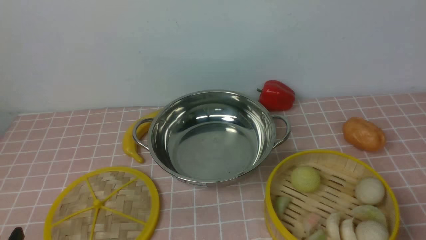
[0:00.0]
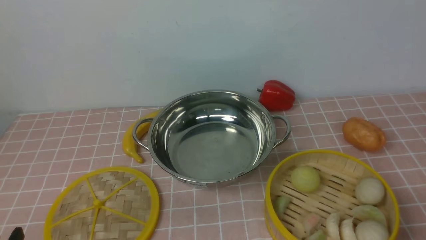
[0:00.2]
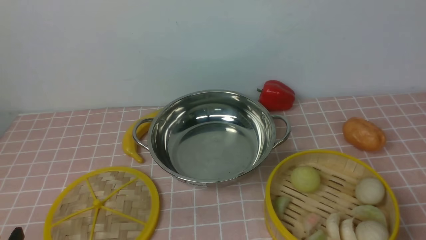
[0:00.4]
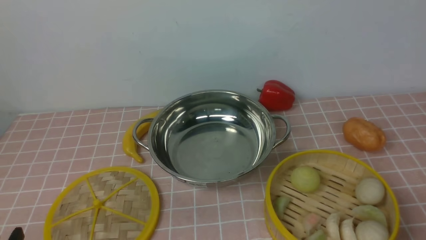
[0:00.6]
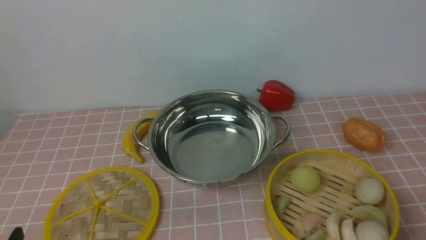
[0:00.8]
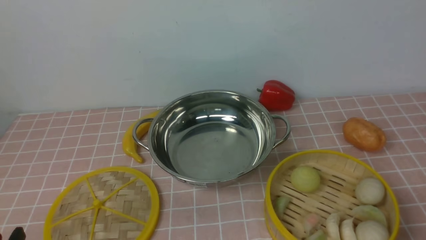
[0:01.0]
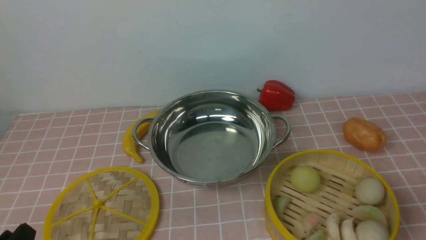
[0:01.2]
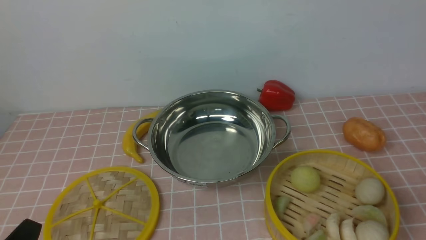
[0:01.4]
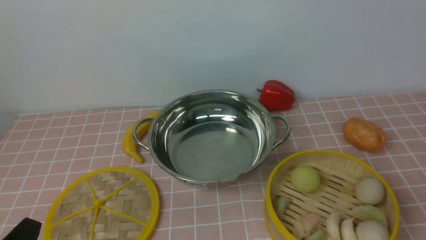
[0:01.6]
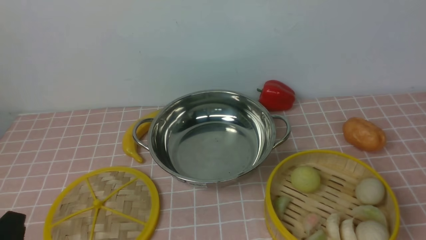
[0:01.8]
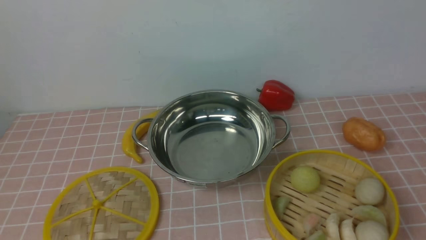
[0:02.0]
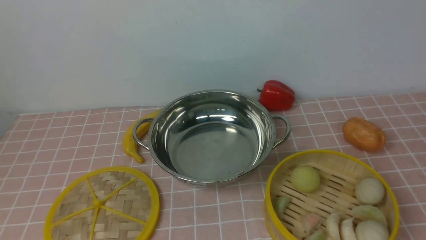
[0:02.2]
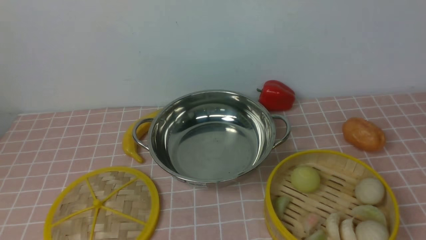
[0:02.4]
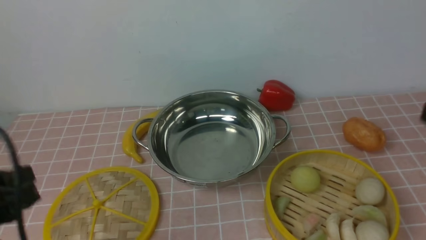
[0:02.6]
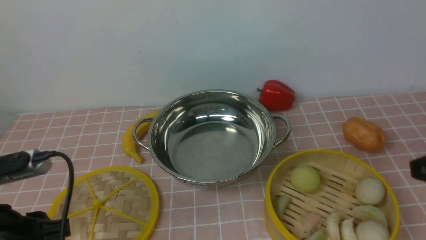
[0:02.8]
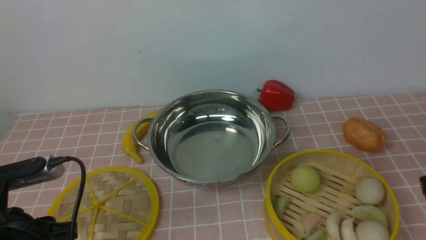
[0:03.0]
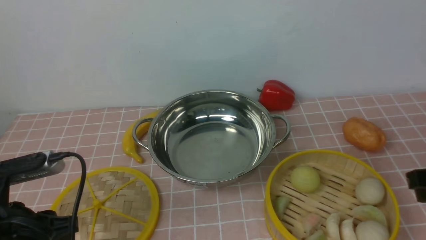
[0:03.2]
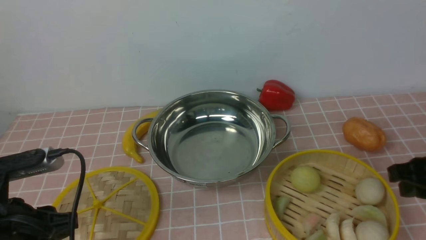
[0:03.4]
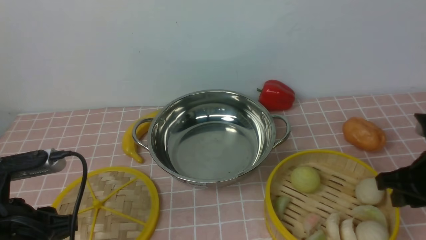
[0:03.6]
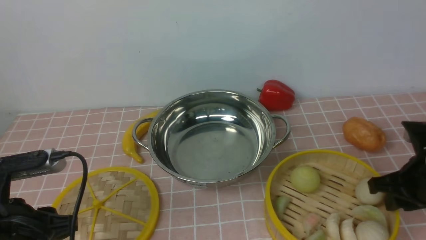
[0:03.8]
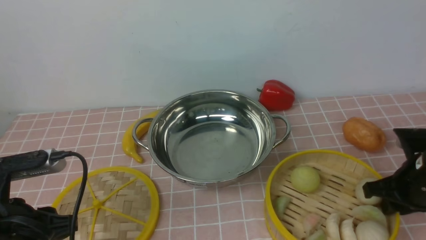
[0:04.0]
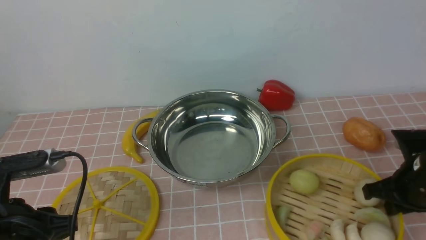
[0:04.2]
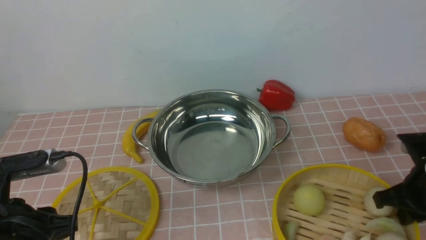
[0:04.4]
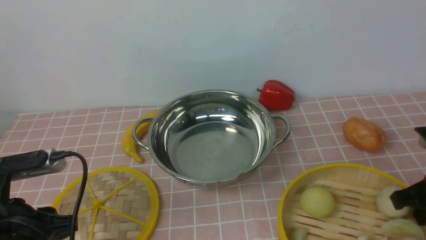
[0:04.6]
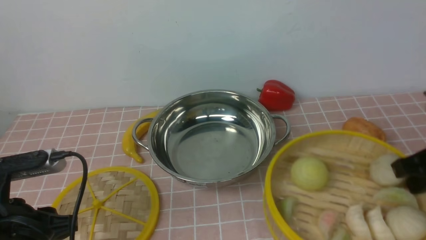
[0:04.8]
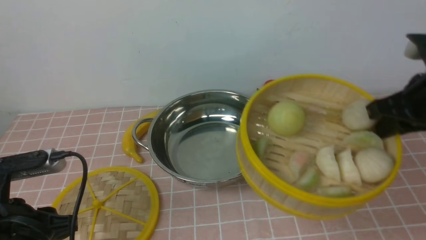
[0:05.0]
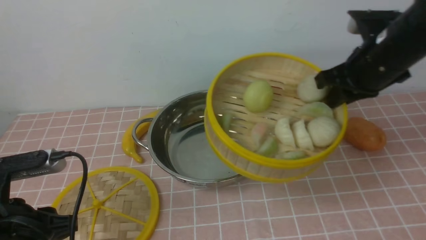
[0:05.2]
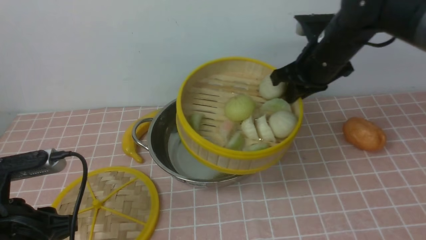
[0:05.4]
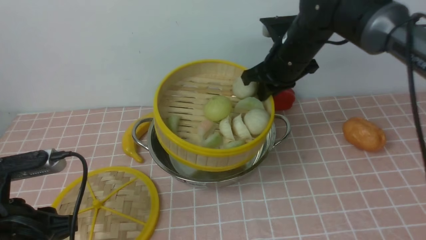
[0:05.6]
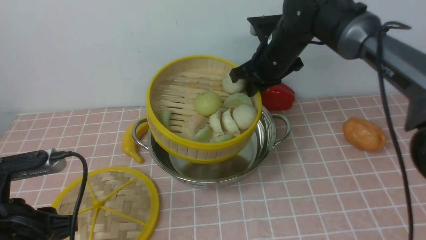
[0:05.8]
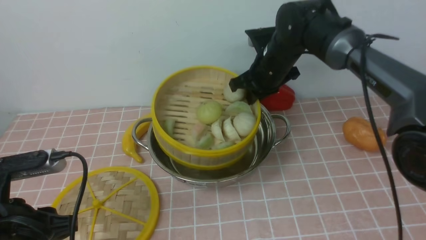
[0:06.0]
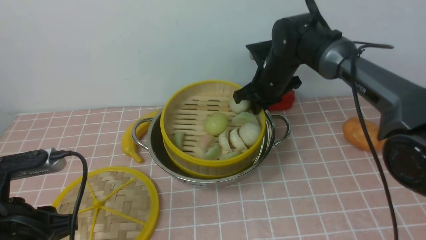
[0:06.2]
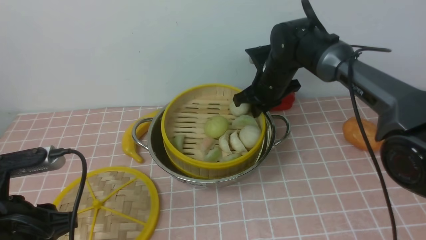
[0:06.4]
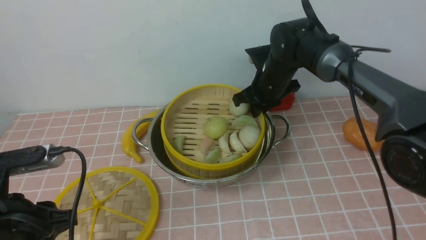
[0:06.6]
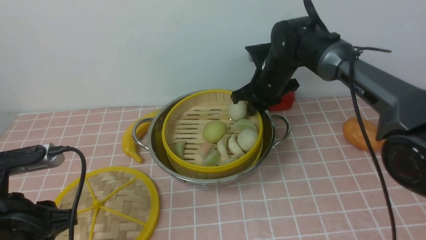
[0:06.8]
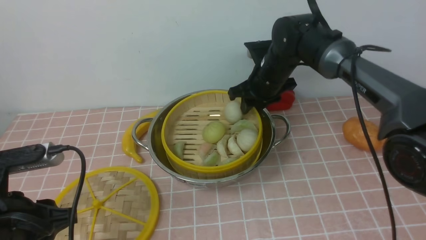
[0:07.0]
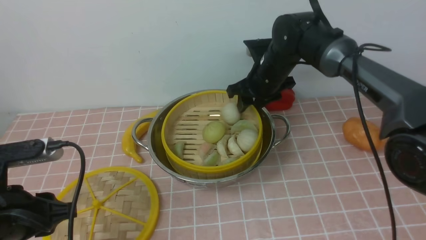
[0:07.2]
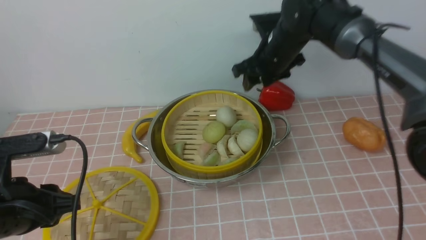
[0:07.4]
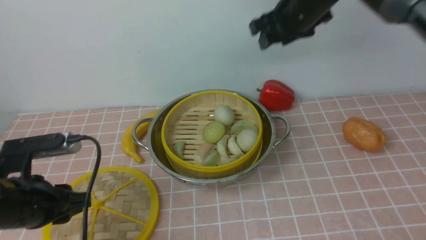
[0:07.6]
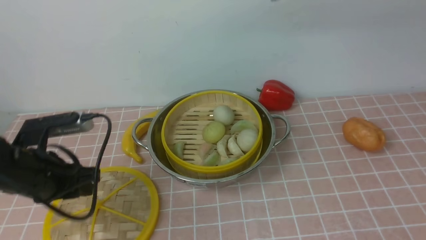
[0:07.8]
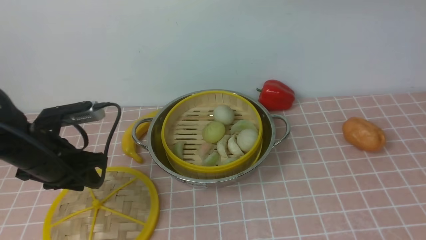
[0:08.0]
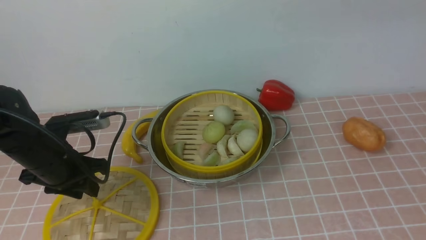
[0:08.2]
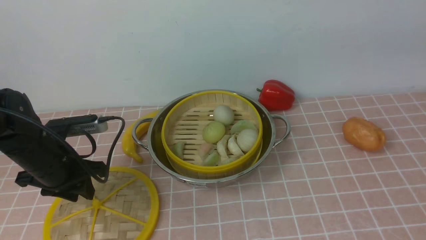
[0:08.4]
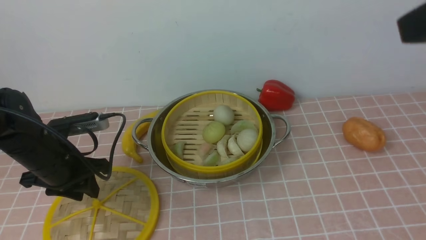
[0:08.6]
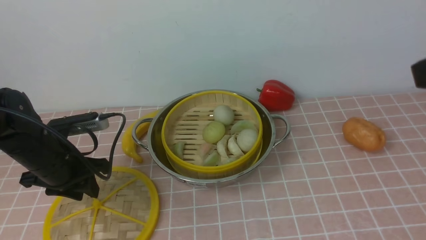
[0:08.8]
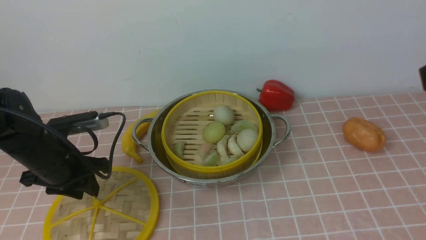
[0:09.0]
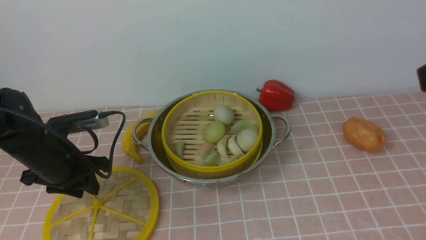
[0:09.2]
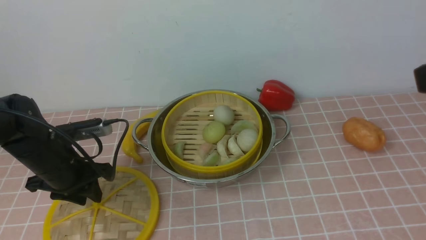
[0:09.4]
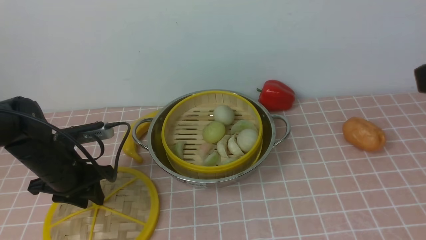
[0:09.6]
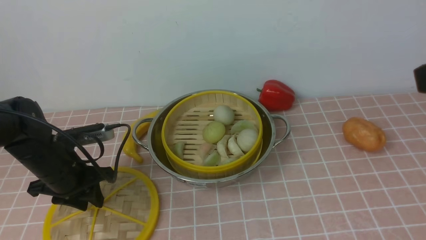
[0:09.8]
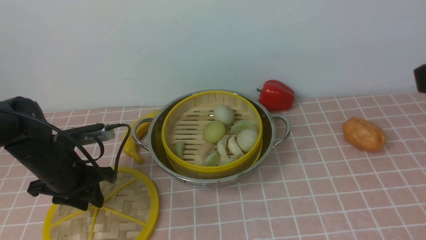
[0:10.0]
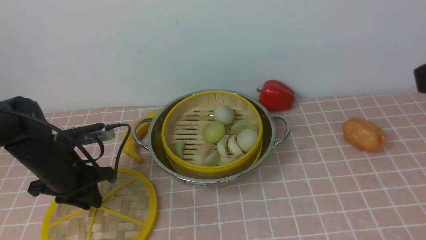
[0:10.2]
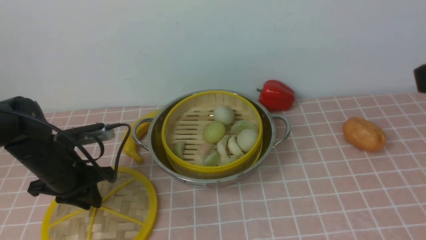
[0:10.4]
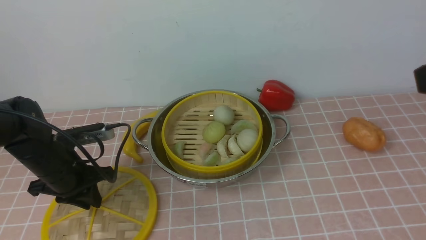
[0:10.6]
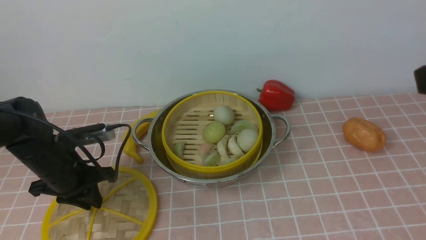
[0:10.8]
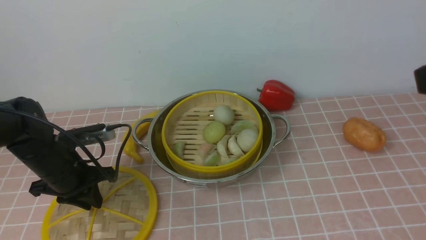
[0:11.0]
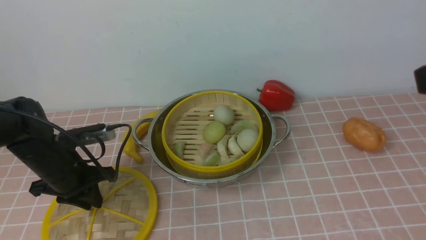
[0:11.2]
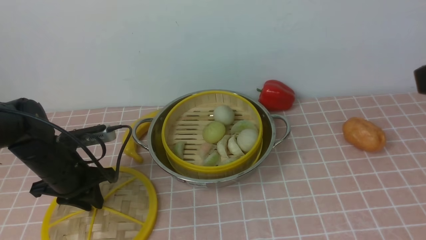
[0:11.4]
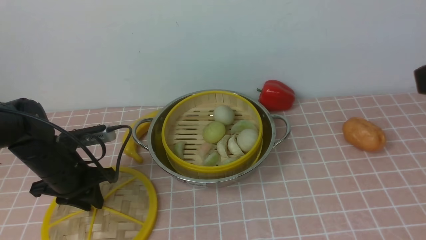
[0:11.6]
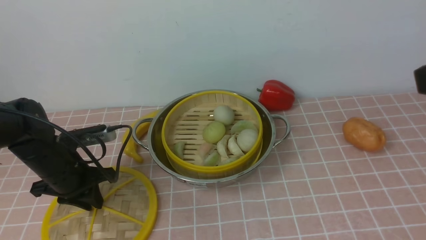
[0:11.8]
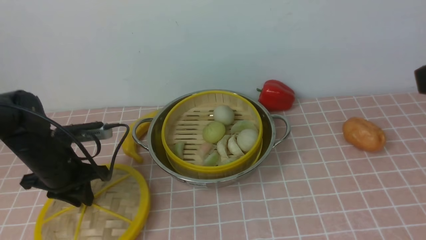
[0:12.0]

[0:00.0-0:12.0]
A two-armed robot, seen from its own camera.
Task of the whole recording: place the steamer in the pot on the pink tablecloth, and put the lid on the steamer.
Step, 0:00.0 to 0:04.4: use the right arm to lift the steamer closest to it.
Step, 0:04.6 to 0:07.2: use the right arm to put the steamer into the iron steamer pot in the middle.
Step, 0:07.4 to 0:12.0: use the left arm to lift the lid of the steamer.
0:01.6 to 0:03.0: The left gripper is displaced forward by some 10 cm, and reaches some 15 cm upward, then returns.
0:03.0 to 0:04.4: The right gripper travels downward and forward by about 10 cm, and closes up.
0:04.4 to 0:06.0: The right gripper shifts roughly 30 cm forward and to the left.
0:06.0 to 0:07.6: The left gripper shifts some 5 cm forward. Meanwhile the right gripper is displaced upward by some 15 cm, and opens.
0:07.6 to 0:09.0: The right gripper is displaced backward by about 30 cm; the left gripper shifts roughly 10 cm forward.
0:09.0 to 0:12.0: There are only small adjustments of the grippers.

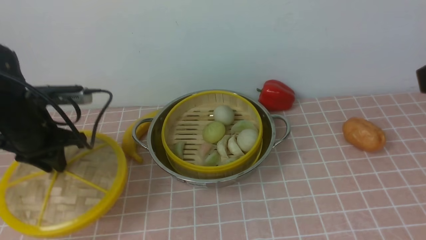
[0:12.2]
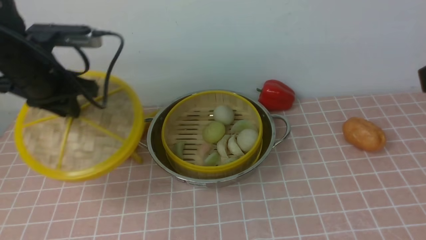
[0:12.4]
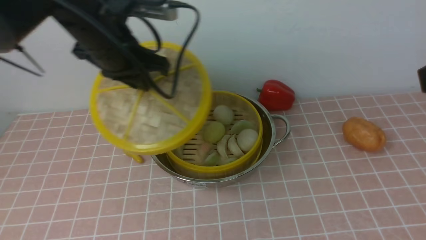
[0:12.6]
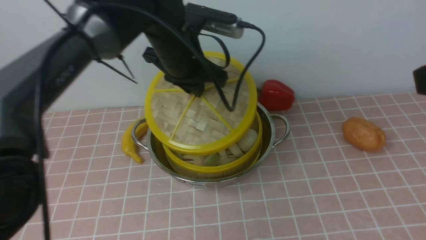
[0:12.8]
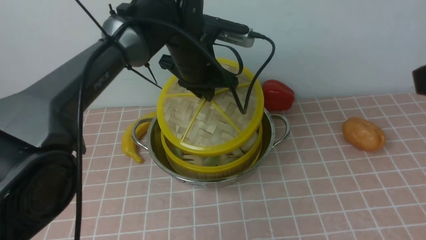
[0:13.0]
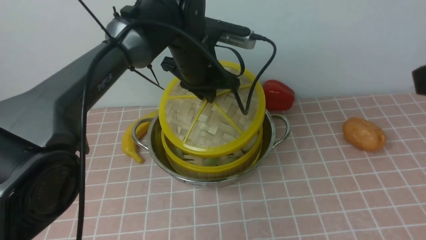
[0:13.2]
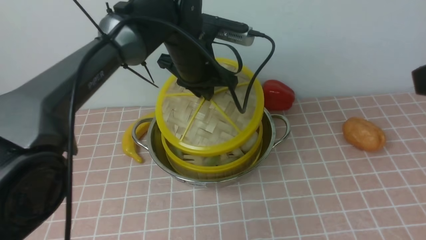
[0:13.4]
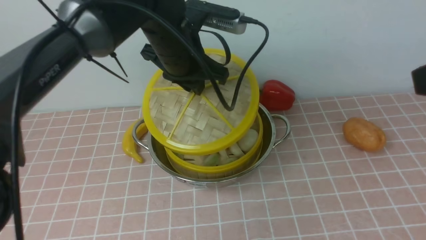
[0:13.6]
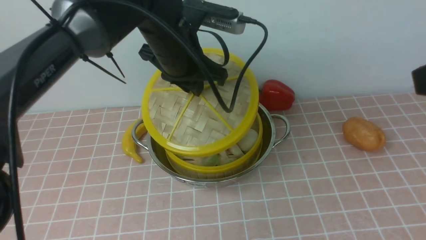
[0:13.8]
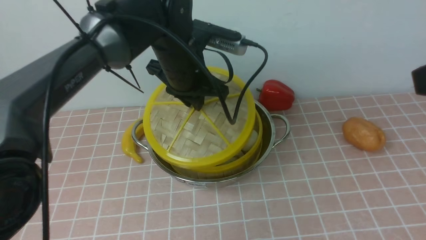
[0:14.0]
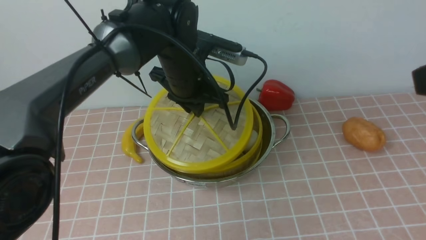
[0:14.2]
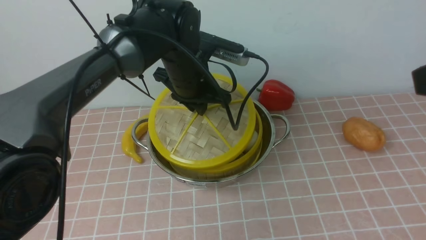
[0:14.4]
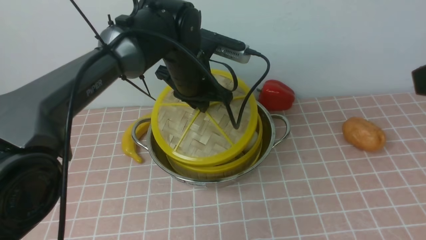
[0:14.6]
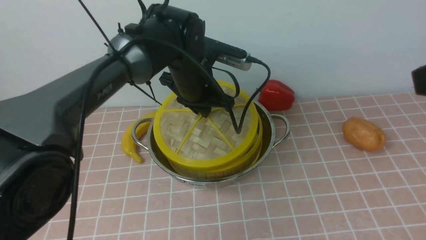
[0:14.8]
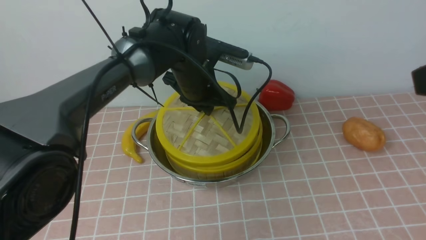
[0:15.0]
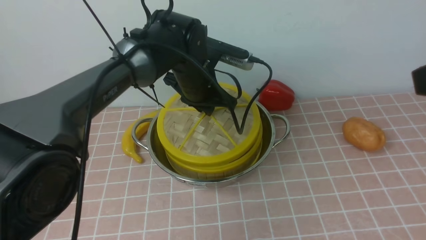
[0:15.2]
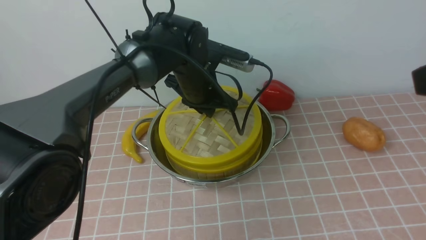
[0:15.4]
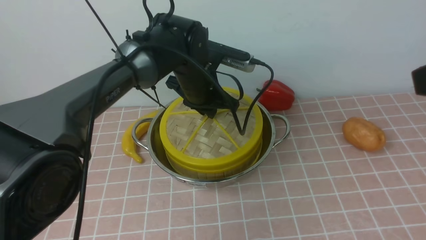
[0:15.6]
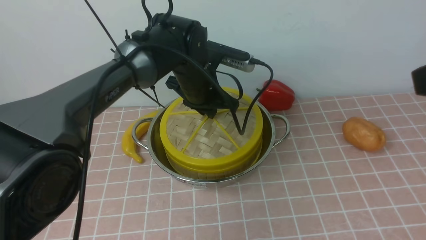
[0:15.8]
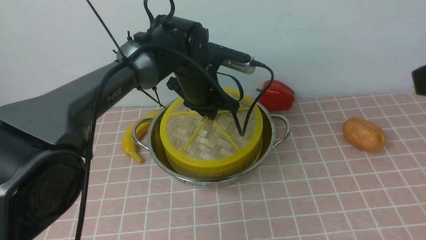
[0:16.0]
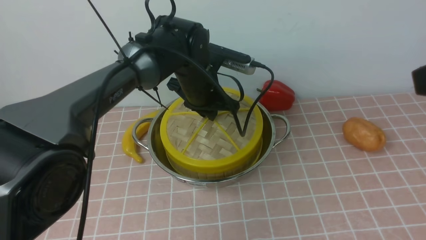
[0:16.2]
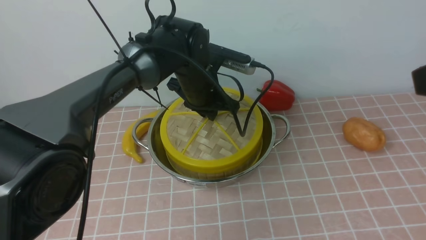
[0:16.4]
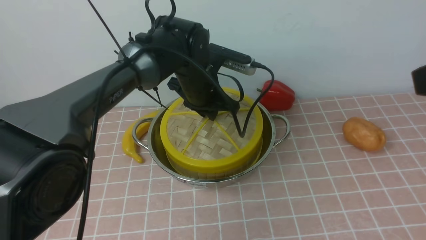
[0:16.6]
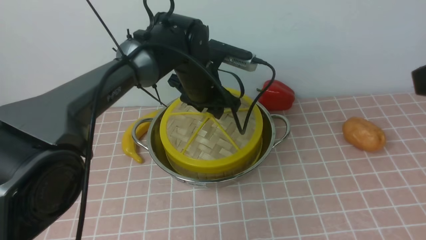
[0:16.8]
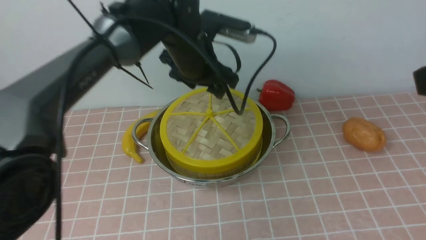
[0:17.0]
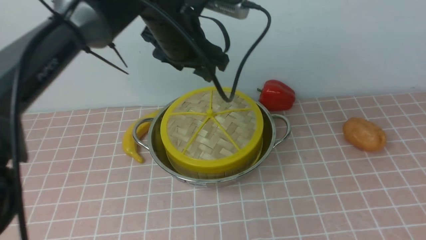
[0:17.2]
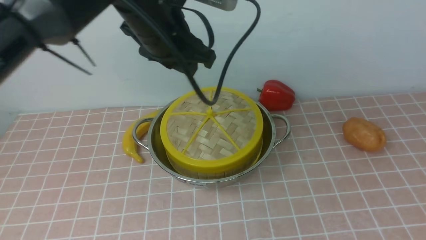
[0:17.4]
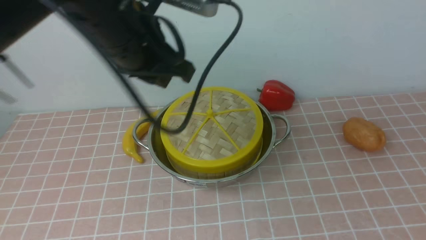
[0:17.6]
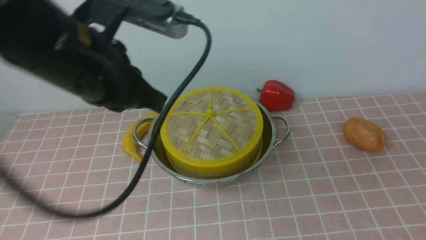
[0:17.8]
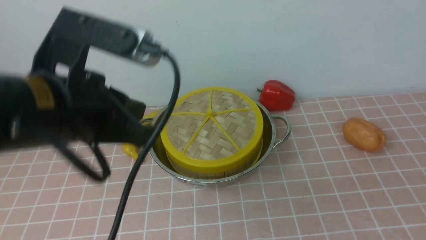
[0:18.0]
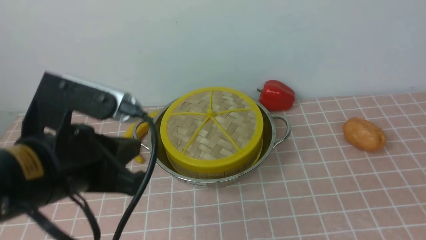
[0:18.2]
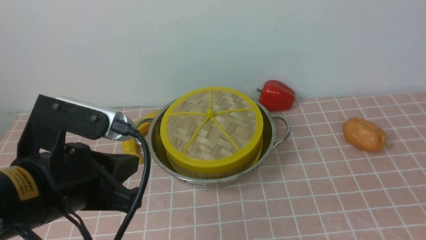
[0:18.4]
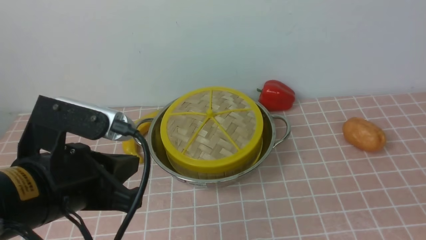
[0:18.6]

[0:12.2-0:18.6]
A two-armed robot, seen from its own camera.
Task of the whole recording: place the steamer in the pot on the pink tablecloth, and put the lid on the steamer.
Step, 0:12.2 to 0:16.8: use the left arm to place the steamer lid on the steamer.
0:12.2 to 0:13.8: The left gripper goes roughly 20 cm to the right.
0:13.8 to 0:15.4: The left gripper heads downward, covering approximately 10 cm.
0:15.4 to 0:17.0: The left gripper is displaced upward by roughly 5 cm, and opens.
0:17.0 to 0:18.6: The left gripper moves backward and to the left, about 30 cm, and closes its fingers; the right gripper is displaced downward, backward and to the right by approximately 15 cm, and closes up.
